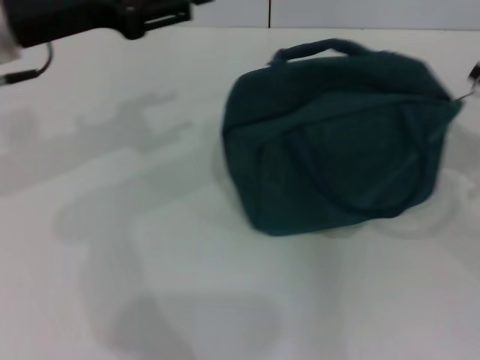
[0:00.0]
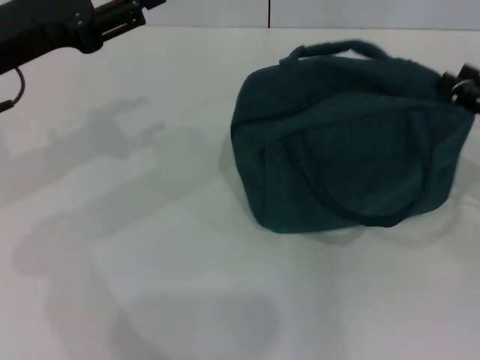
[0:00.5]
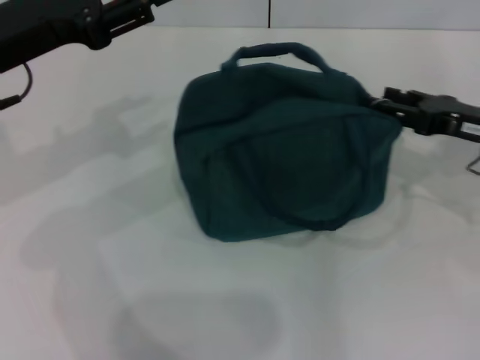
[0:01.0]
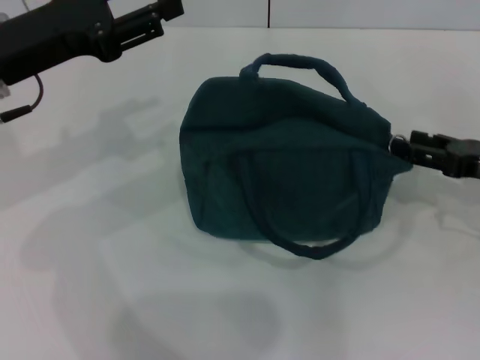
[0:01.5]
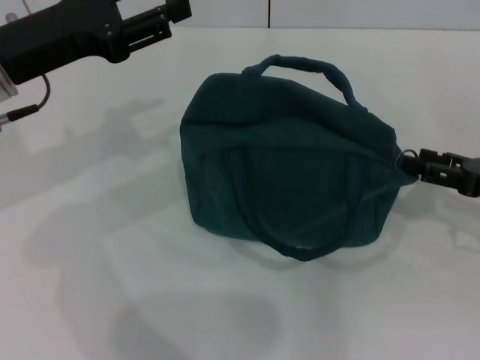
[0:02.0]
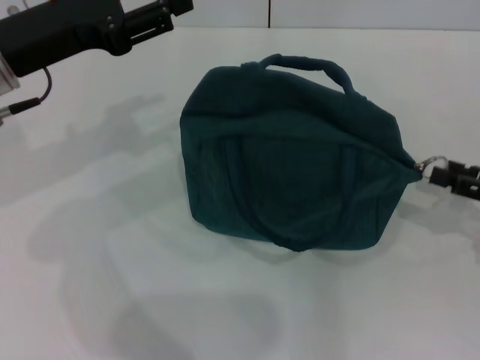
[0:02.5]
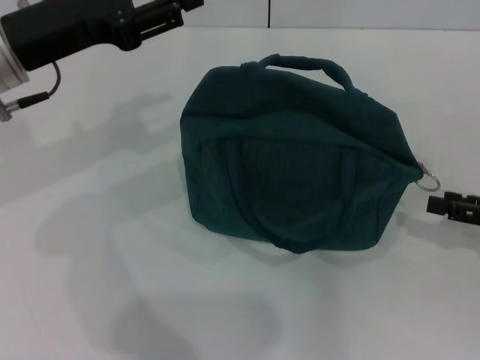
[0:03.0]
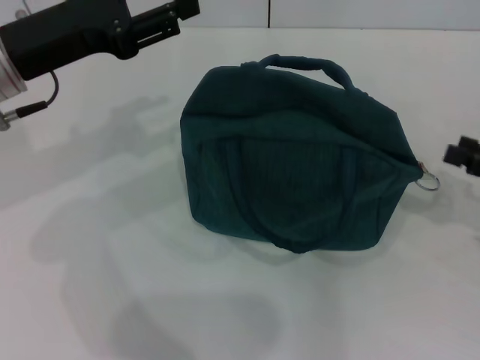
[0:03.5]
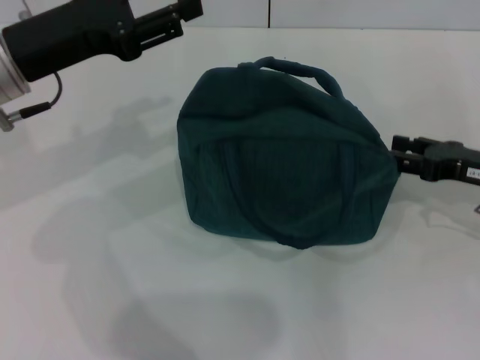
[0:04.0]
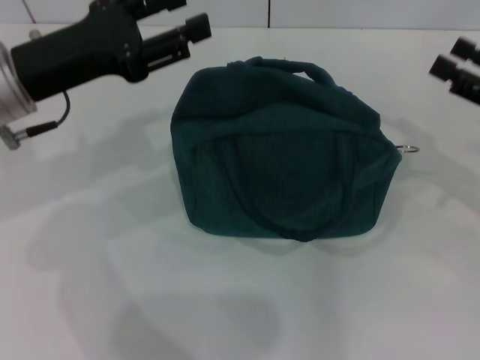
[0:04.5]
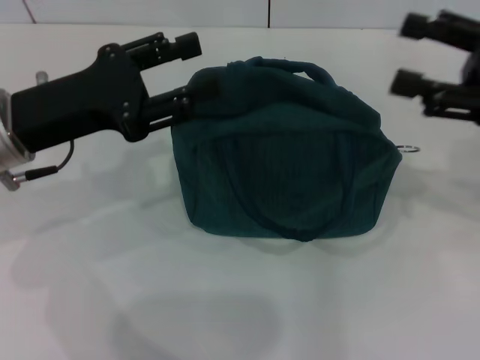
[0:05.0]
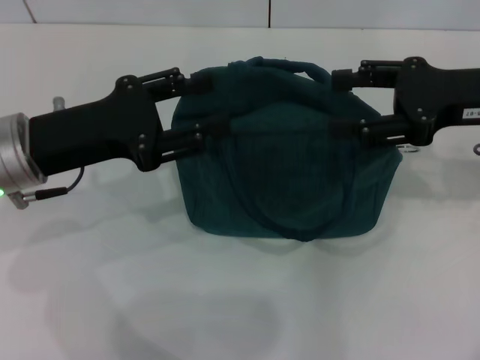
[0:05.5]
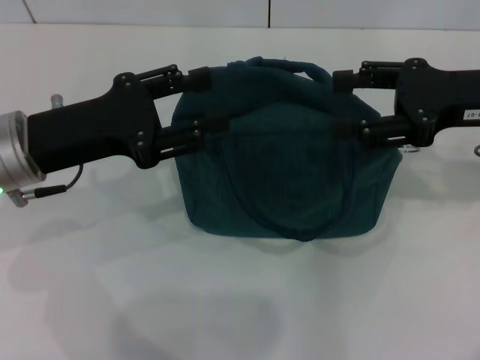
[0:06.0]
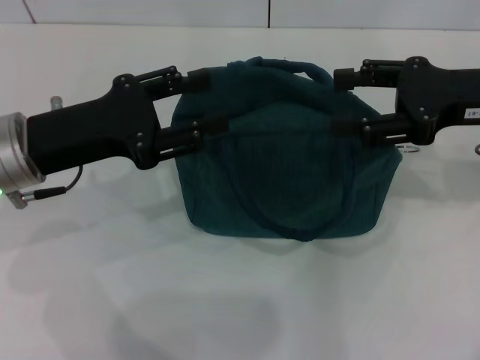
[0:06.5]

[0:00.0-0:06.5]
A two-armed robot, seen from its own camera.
Step, 0.0 to 2.5 s: Zip up the lunch bag with your right hand.
0.0 to 2.0 s: The right gripper opens its fingers.
4.5 to 6.5 s: The right gripper is displaced to the left and upward by some 10 cm.

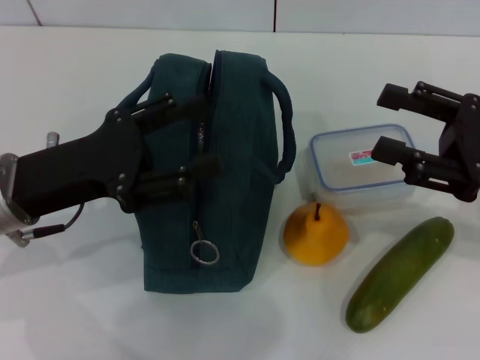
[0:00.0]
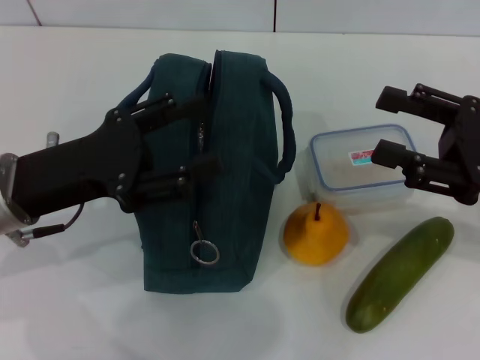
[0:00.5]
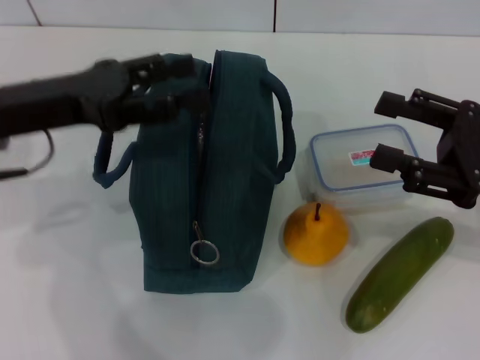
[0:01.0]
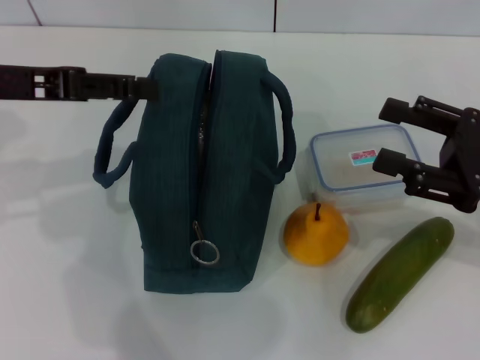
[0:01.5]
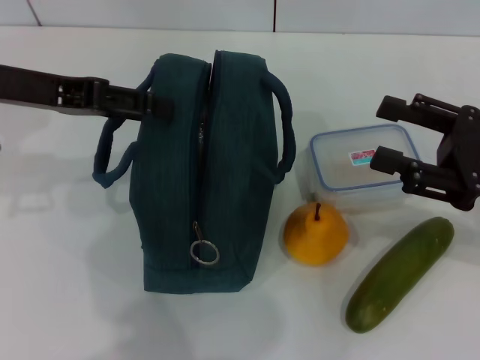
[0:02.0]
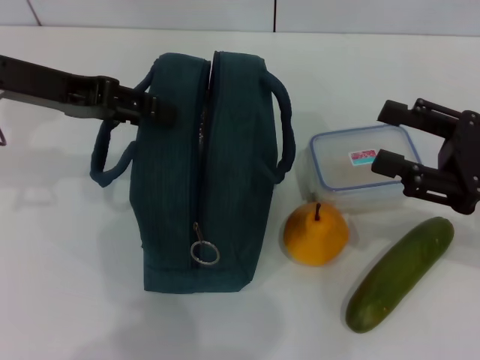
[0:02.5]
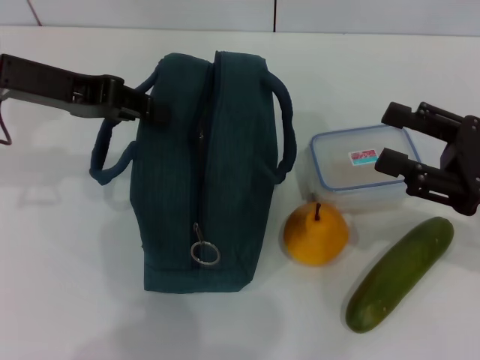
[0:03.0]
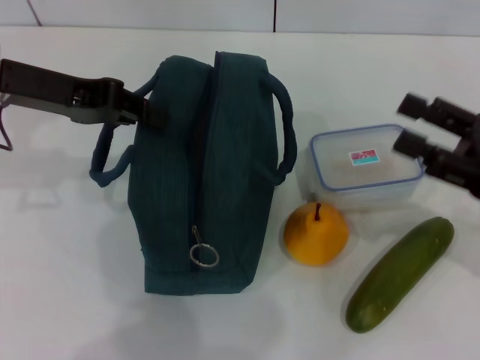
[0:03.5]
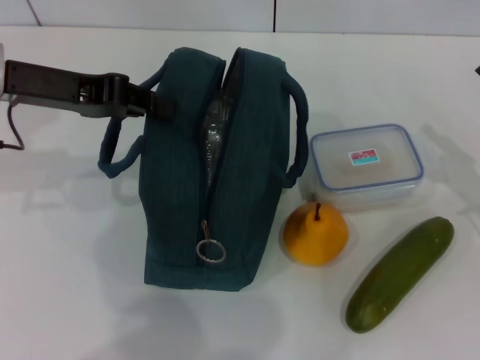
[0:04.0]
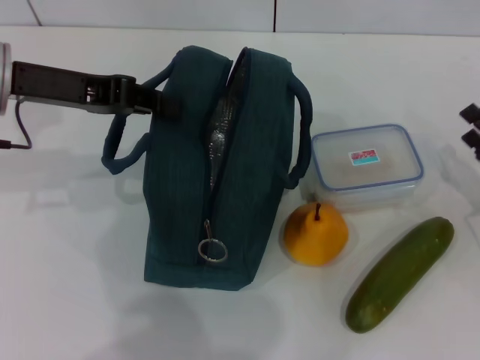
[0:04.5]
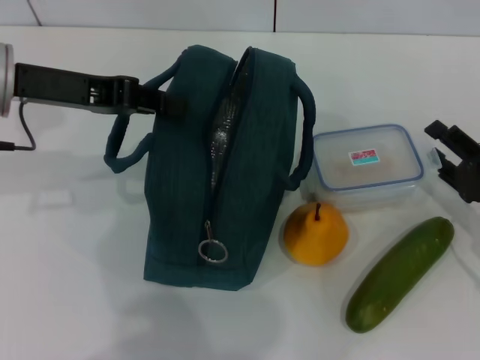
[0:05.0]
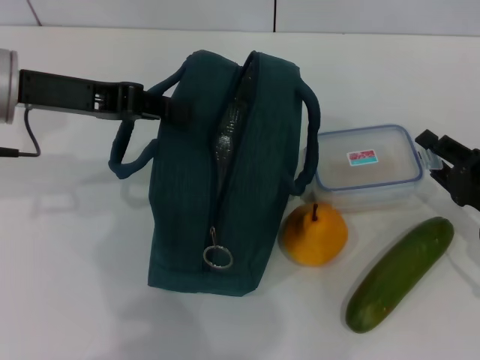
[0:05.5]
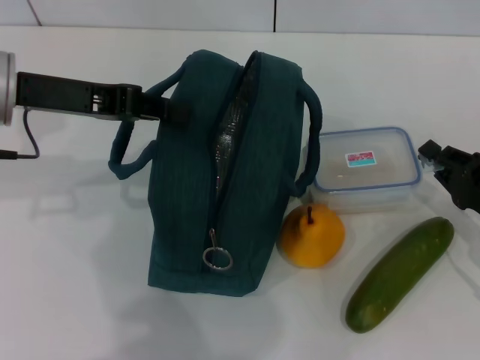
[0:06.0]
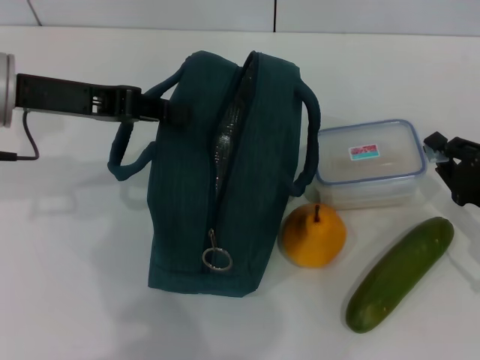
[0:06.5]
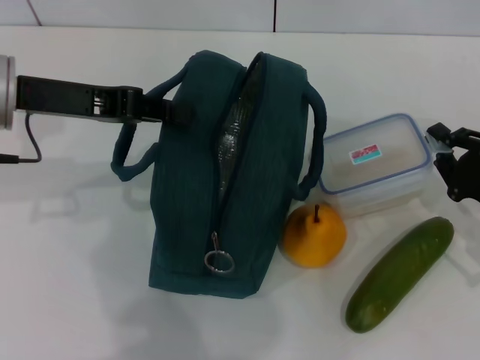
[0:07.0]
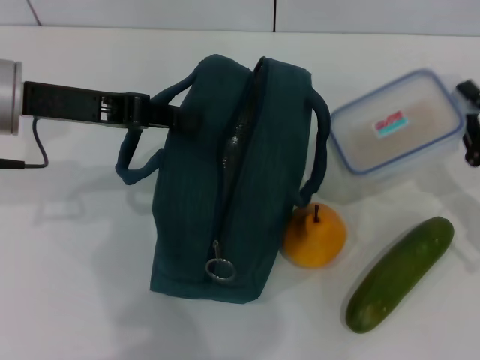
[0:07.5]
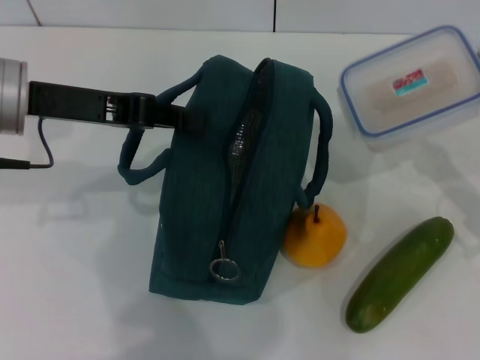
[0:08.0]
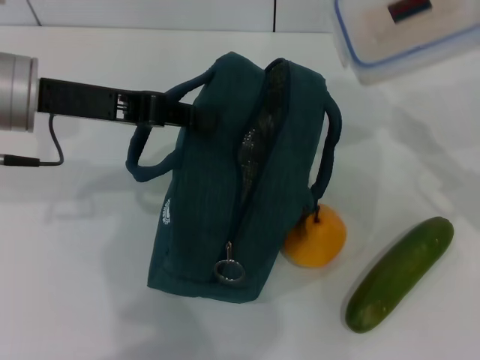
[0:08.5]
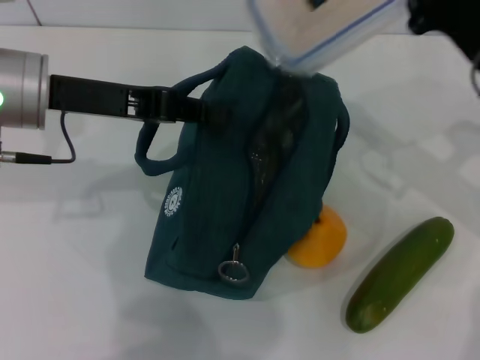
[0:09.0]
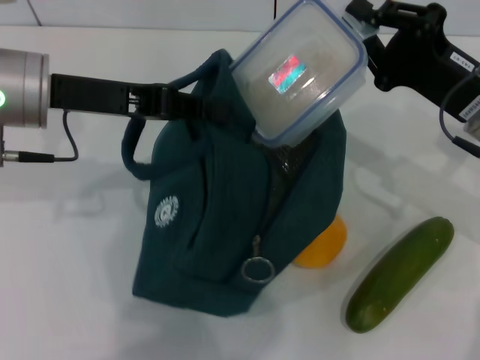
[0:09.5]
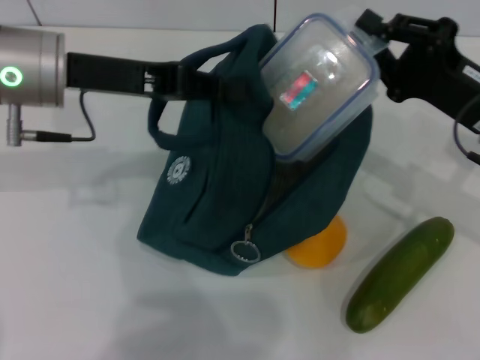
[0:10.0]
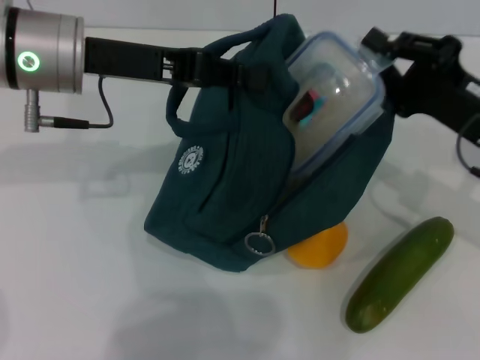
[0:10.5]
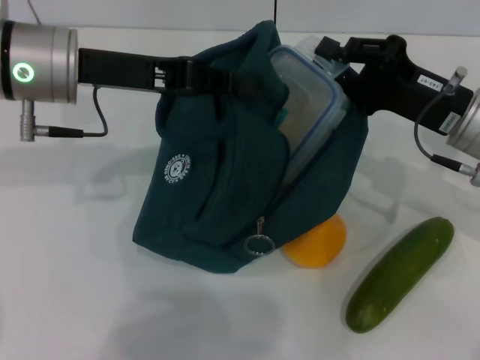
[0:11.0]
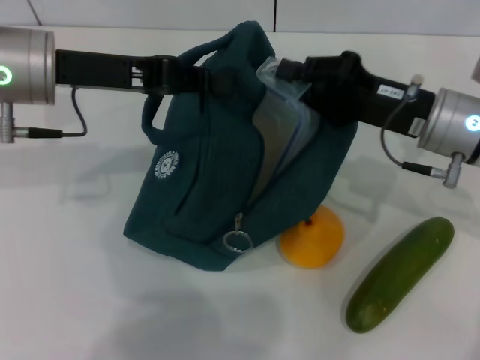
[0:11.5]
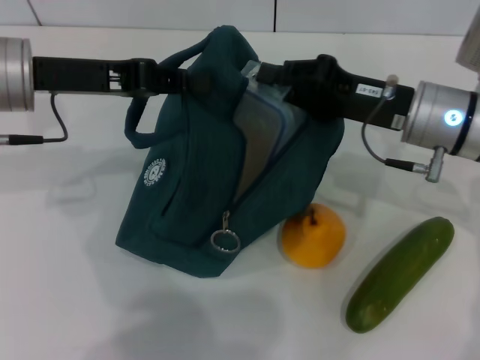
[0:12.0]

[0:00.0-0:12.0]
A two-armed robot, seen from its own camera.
Step, 0.0 to 4.0 s: Hold the lunch bag with your left hand.
Step, 4.5 to 6.5 s: Pick up the lunch box with your right hand.
0.0 to 2.0 s: The left gripper is displaced upward and forward by about 10 cm.
2.0 to 4.0 s: The left gripper closes up. The right gripper goes approximately 5 cm downward.
4.0 to 6.0 s: The right gripper changes place by roughly 5 cm, and closes.
6.0 to 8.0 s: The right gripper travels upward by some 5 cm.
8.0 to 10.0 s: The right gripper shifts approximately 10 cm to the left and forward.
10.0 to 12.0 s: The right gripper travels to the left by roughly 5 cm.

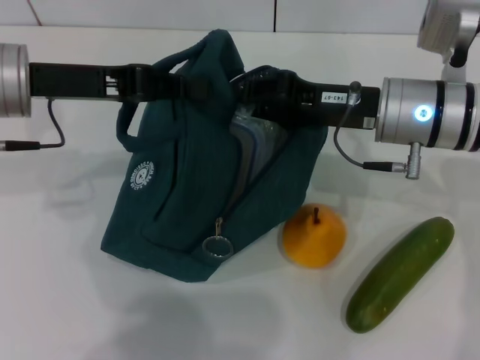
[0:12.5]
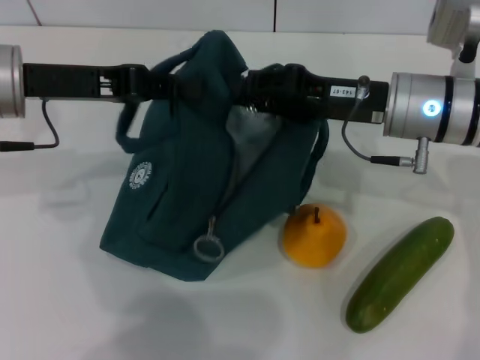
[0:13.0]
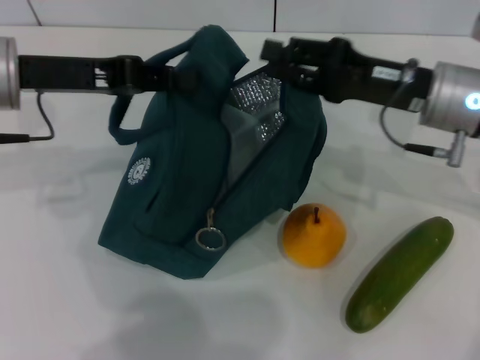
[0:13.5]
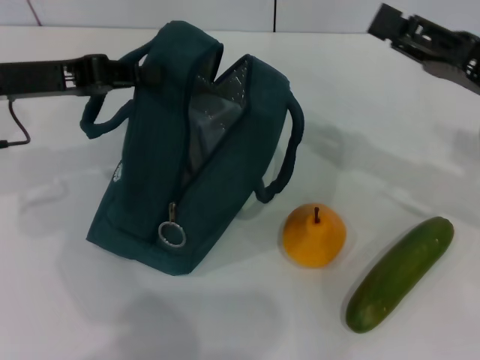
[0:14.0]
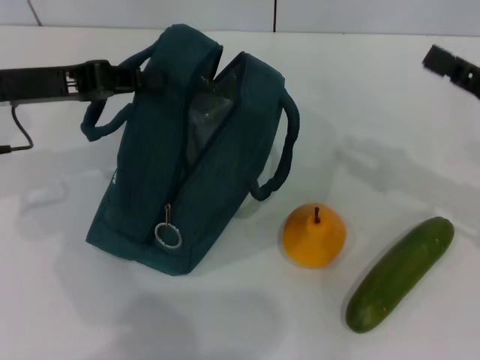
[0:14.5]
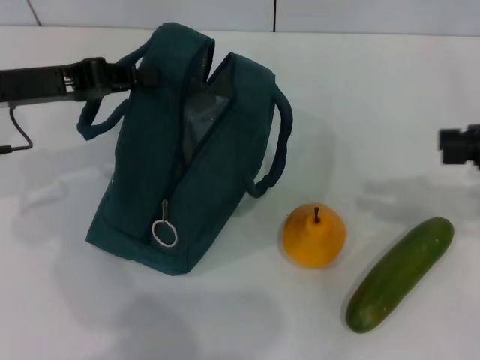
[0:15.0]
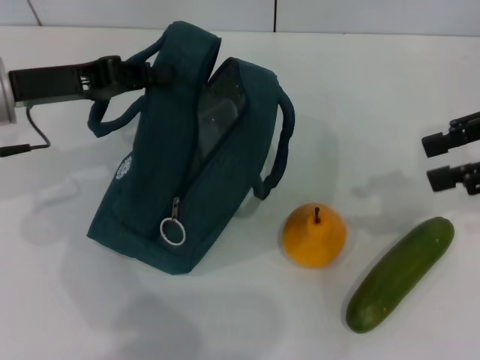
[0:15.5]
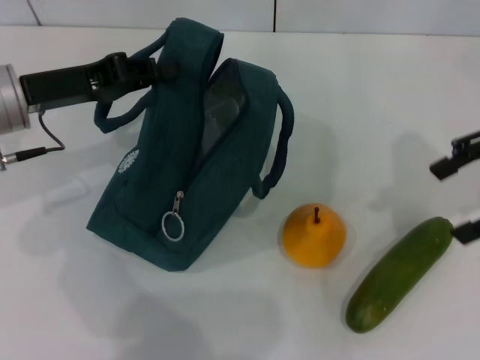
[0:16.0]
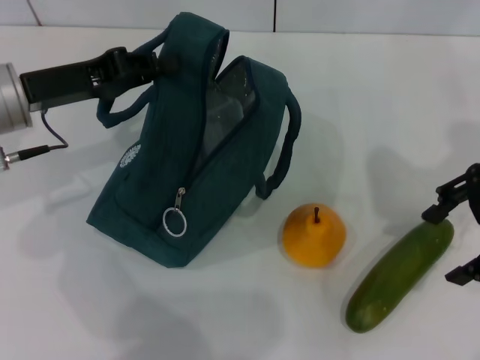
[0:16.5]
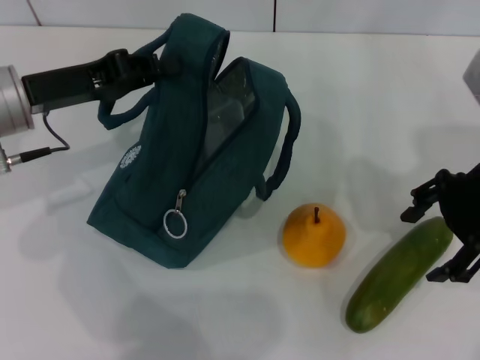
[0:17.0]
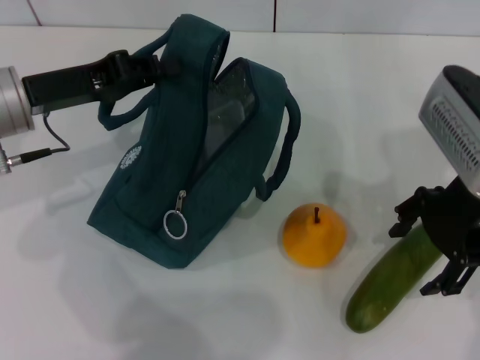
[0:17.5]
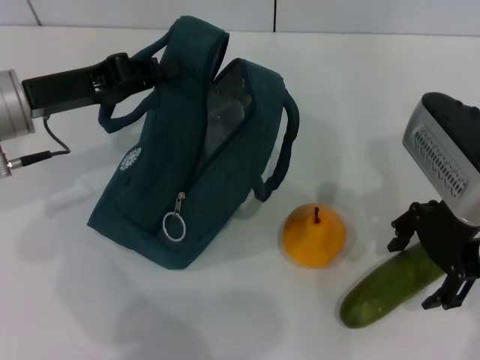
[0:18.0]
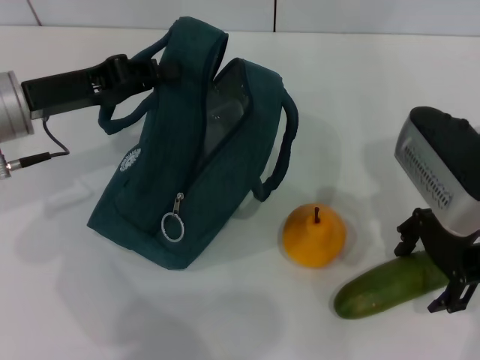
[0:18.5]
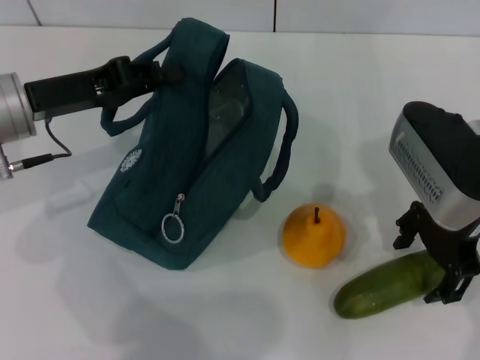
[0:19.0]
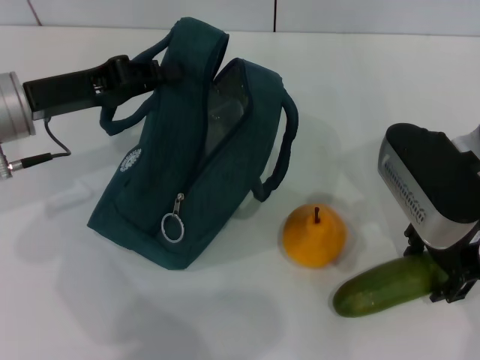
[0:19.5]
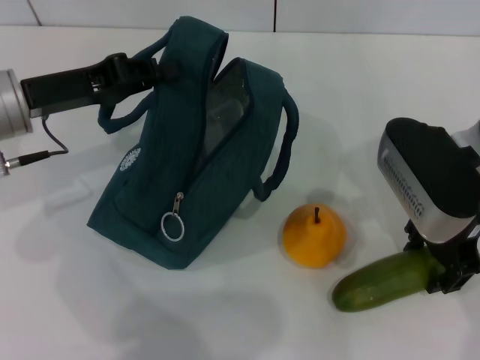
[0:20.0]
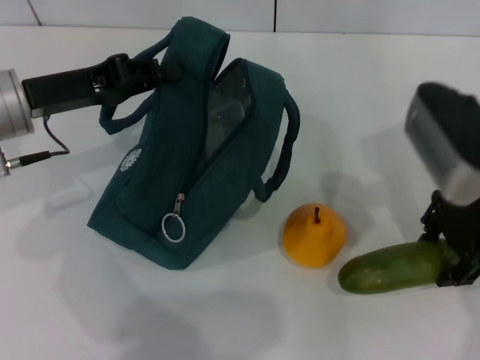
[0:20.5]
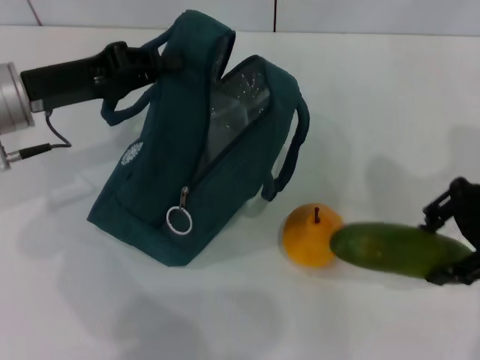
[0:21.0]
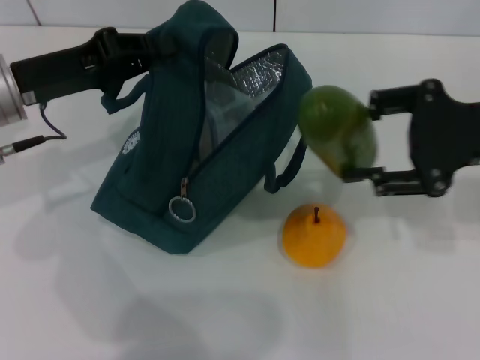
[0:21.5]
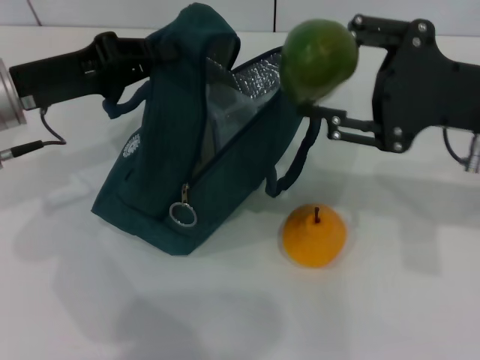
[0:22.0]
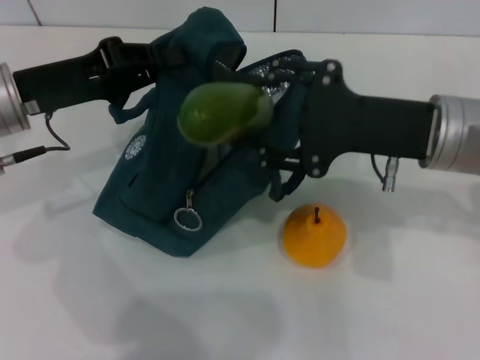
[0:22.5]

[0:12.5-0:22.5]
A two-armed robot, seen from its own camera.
Step, 14.0 to 19.5 s: Pick up the cucumber with your right hand.
12.5 to 14.5 s: The right gripper moves to the right, about 15 cm.
14.5 to 16.5 s: The right gripper goes roughly 10 cm upward and to the left, and opens.
16.5 to 18.5 s: The right gripper shifts approximately 5 cm to the left.
18.5 to 20.5 s: The right gripper closes.
20.5 to 22.5 s: The right gripper travels to the right and back again, approximately 5 cm each way.
